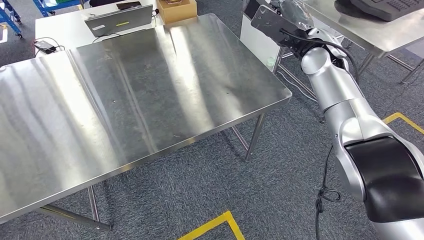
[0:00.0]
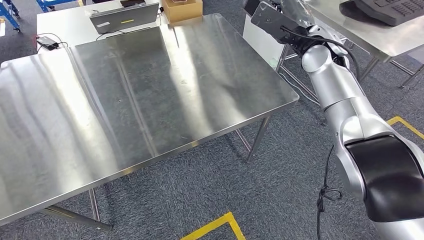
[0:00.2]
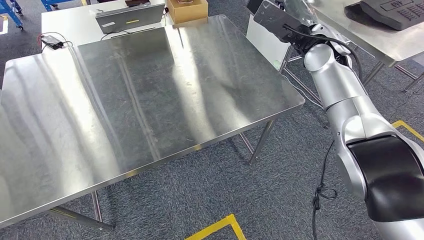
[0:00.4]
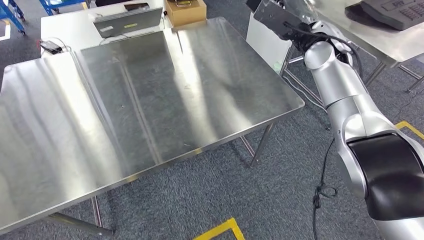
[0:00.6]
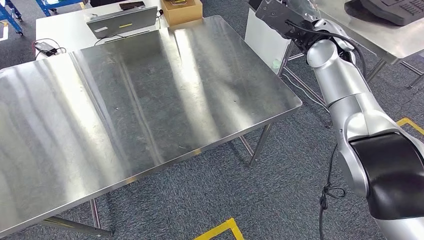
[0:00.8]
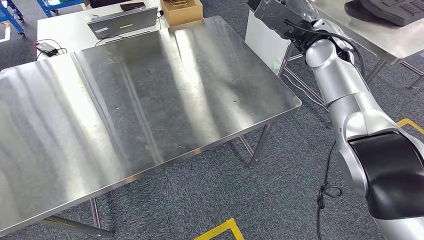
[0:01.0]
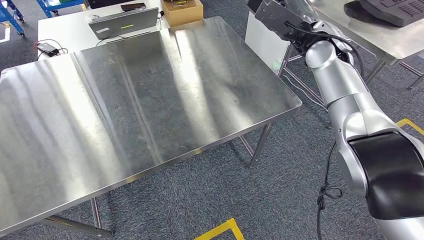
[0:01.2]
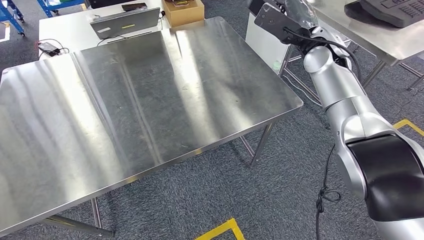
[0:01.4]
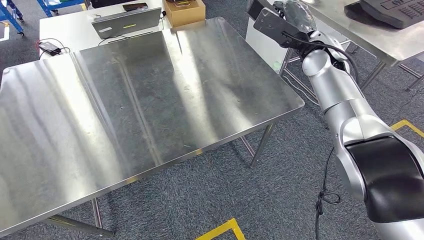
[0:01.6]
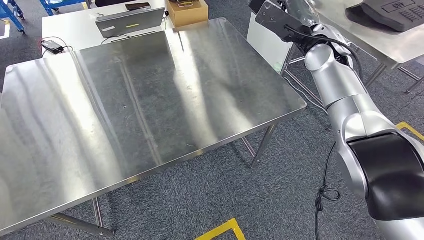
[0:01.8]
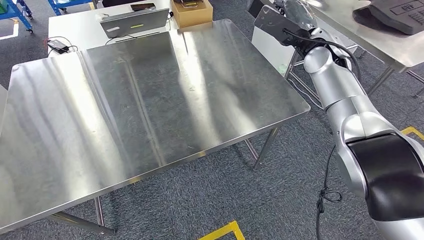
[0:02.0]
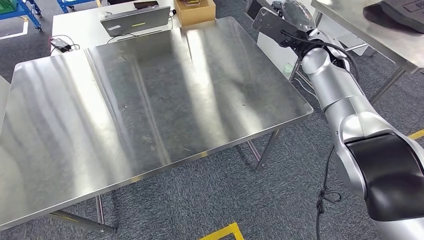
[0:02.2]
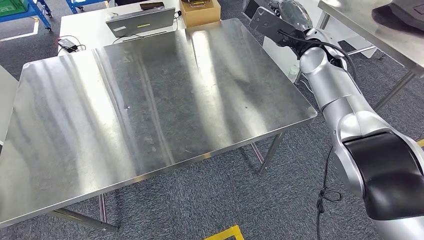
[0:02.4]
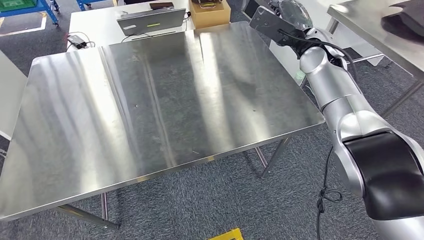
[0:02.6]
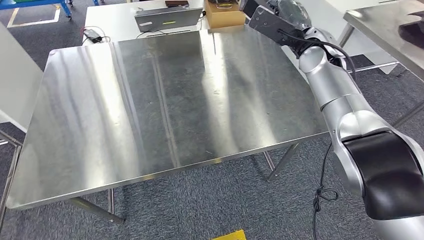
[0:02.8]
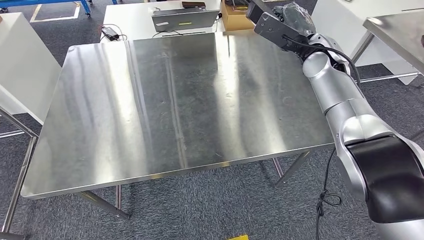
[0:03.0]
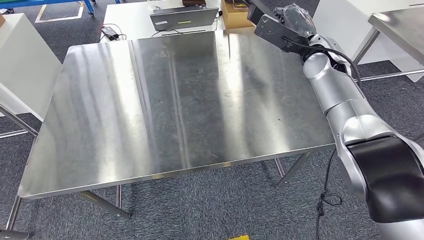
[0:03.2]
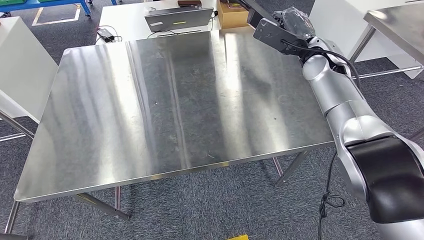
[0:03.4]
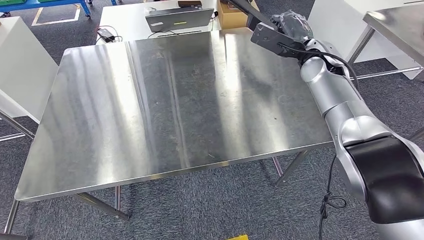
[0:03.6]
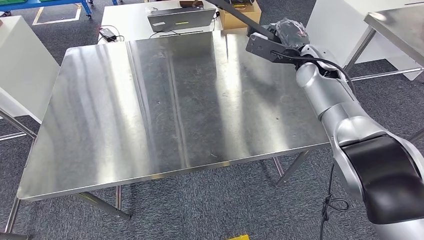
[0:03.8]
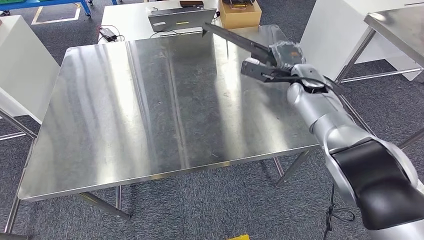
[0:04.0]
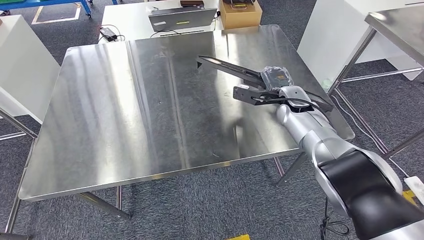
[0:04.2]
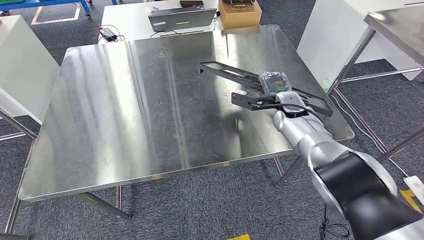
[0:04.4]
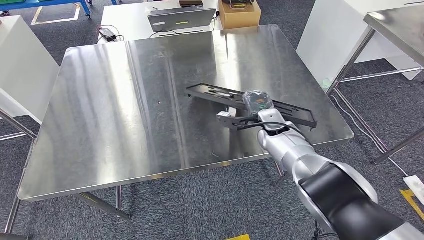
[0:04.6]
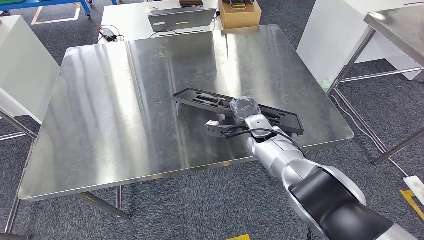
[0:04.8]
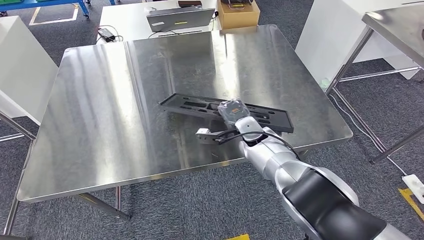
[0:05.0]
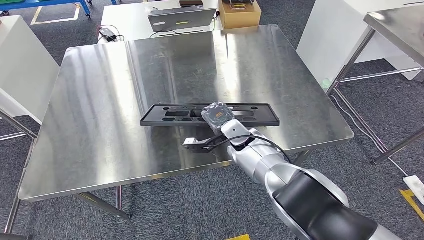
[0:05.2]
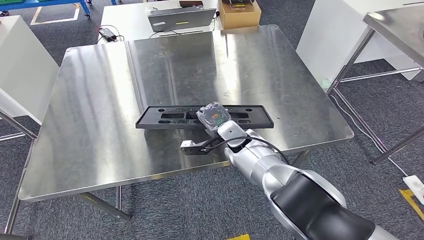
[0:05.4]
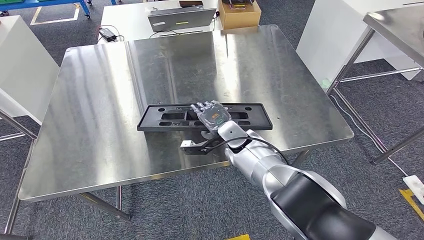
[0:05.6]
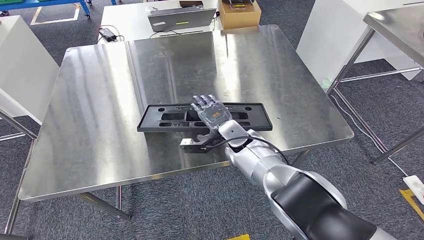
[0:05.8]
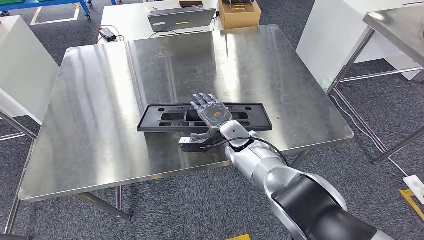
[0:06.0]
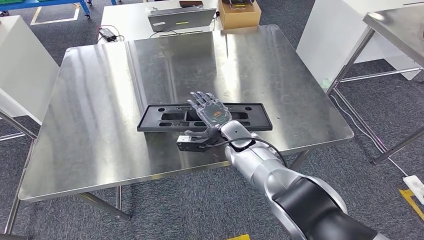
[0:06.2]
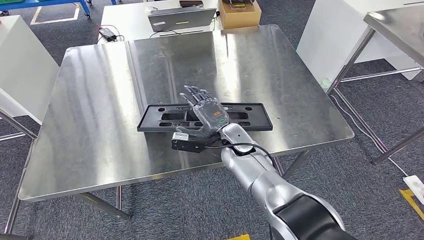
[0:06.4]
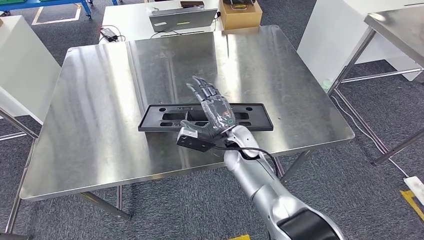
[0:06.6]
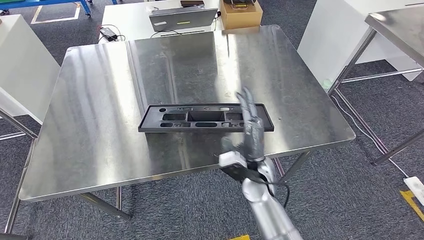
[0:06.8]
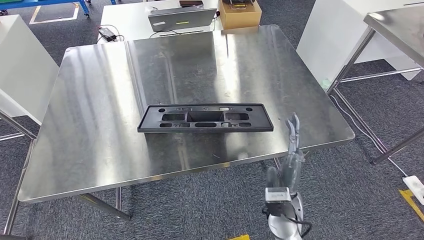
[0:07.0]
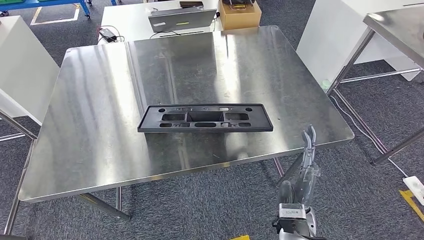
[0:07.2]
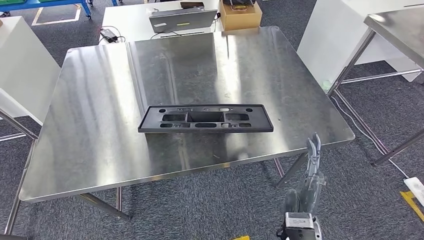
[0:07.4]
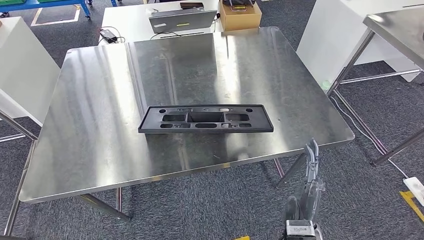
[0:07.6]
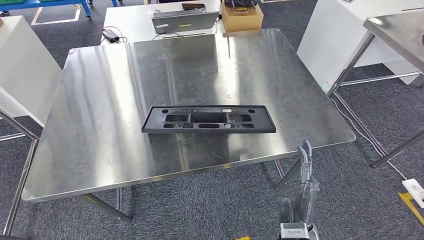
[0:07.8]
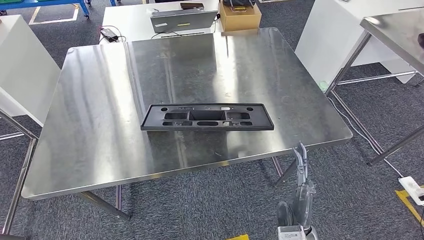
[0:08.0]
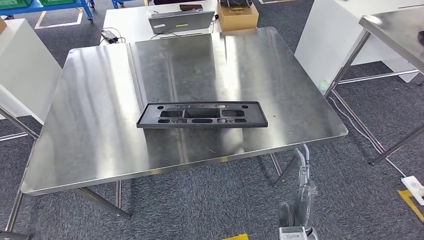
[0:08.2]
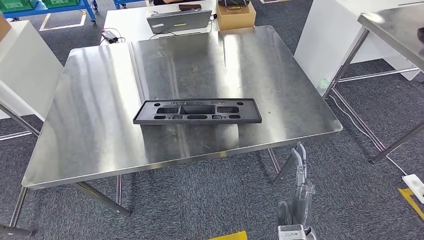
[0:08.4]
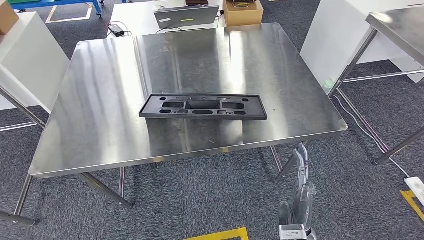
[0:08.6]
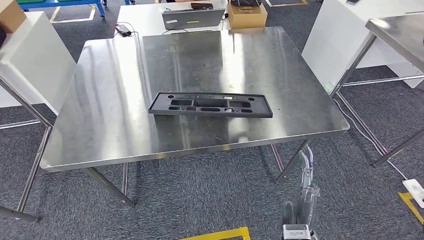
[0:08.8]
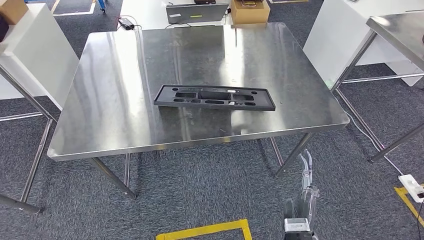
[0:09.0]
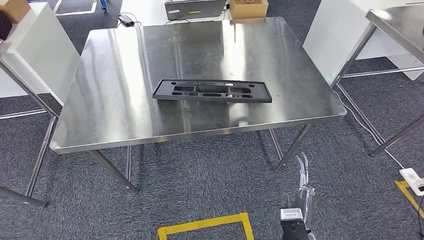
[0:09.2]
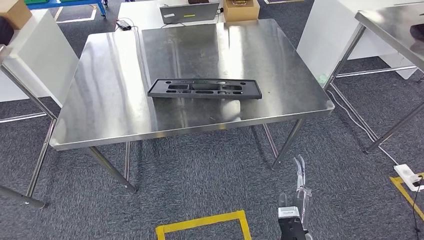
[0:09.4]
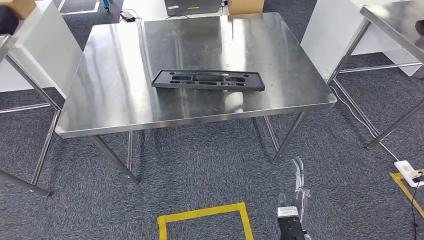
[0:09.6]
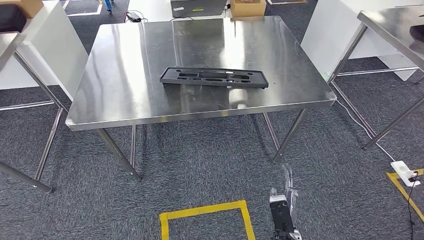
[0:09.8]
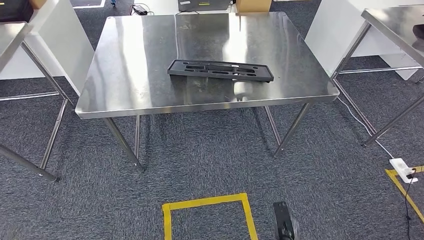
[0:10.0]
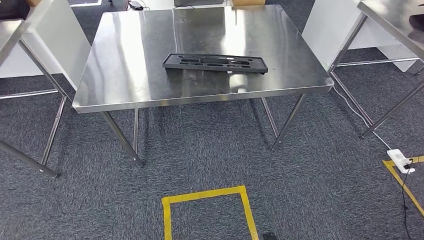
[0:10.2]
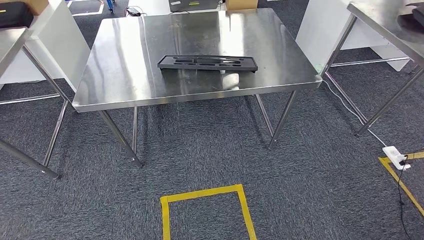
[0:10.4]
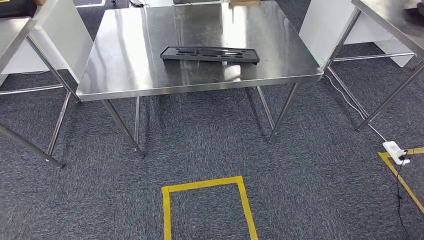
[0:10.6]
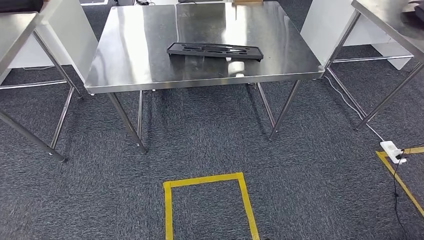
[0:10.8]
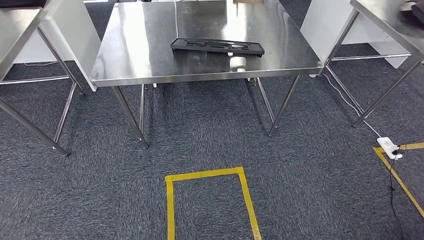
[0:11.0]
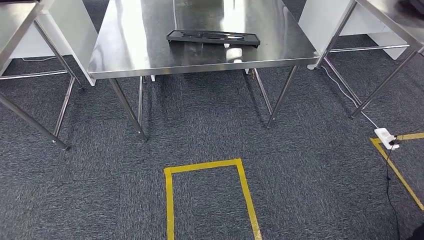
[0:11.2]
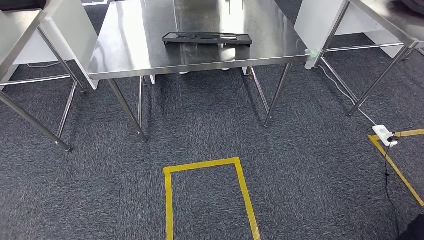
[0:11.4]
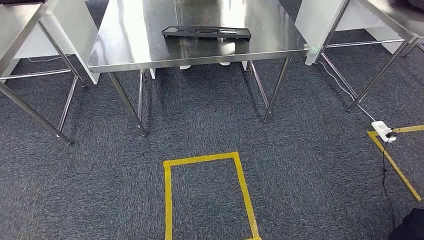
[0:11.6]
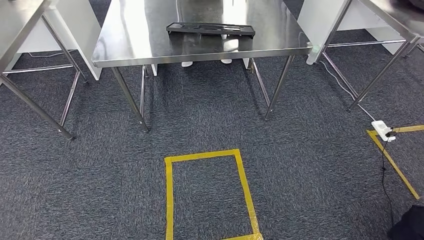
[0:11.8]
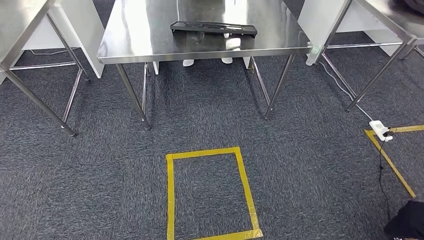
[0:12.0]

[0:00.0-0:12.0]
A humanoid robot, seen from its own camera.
Step, 0:00.0 to 0:10.8: Insert the large material into the corresponding slot on the workbench.
0:00.0 to 0:01.6: The hands make only small movements.
0:04.4 to 0:06.0: The right hand shifts some 15 cm to the left.
0:06.0 to 0:07.6: The right hand heads backward, covering approximately 25 cm.

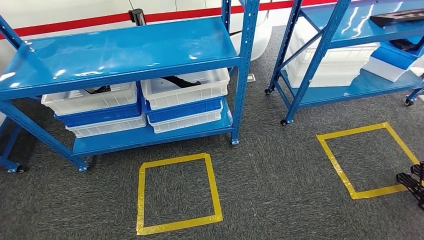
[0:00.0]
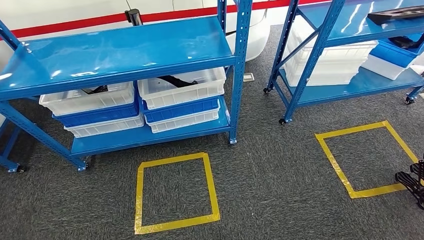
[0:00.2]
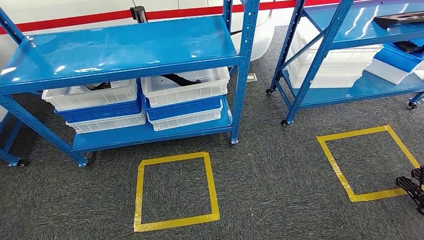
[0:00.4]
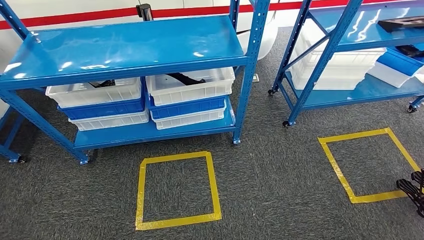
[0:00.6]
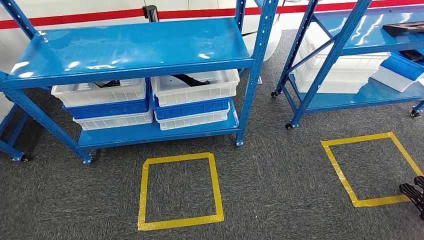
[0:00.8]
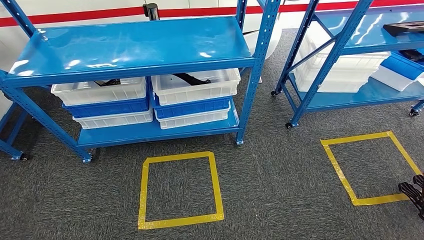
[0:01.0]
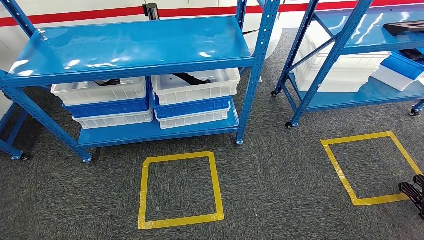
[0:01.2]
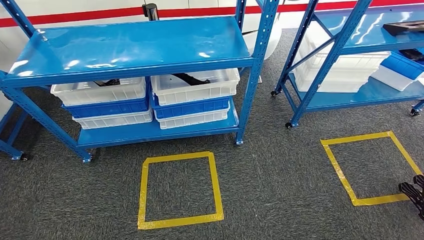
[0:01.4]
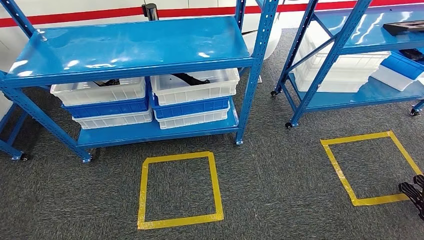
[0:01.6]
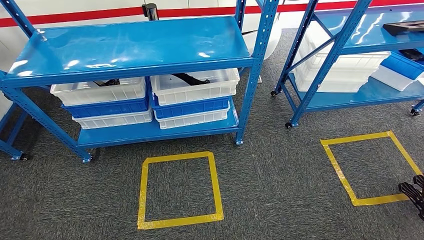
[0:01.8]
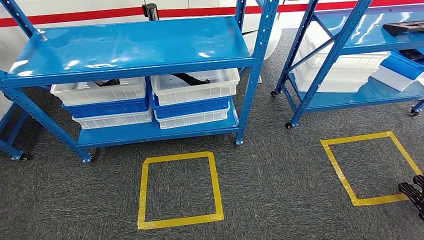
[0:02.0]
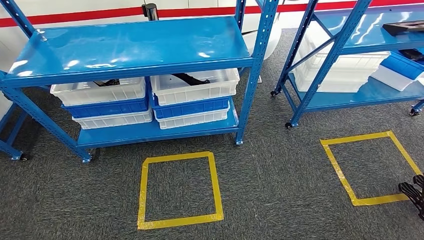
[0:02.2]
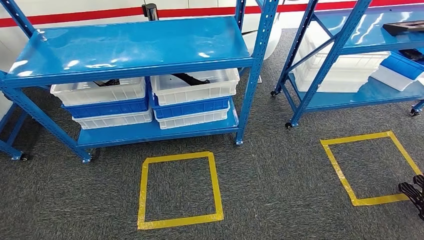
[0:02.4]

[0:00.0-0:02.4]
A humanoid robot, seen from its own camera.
Step, 0:00.0 to 0:02.4: Return to the initial position at the shelf.
0:01.2 to 0:02.4: The hands make only small movements.
